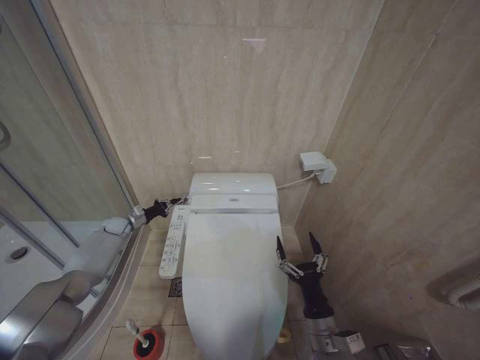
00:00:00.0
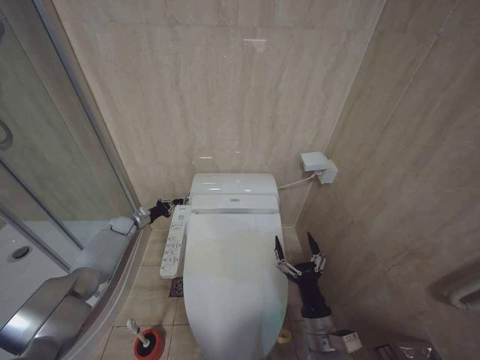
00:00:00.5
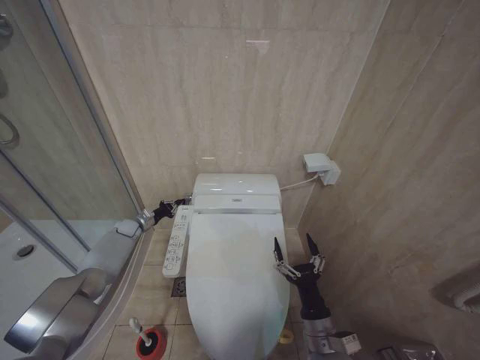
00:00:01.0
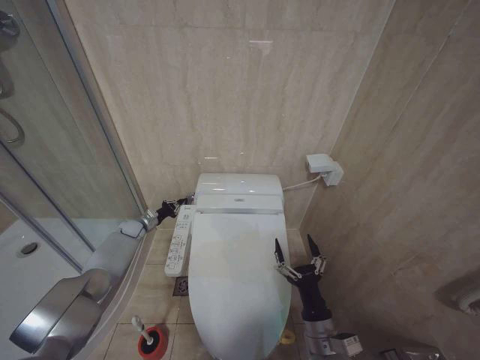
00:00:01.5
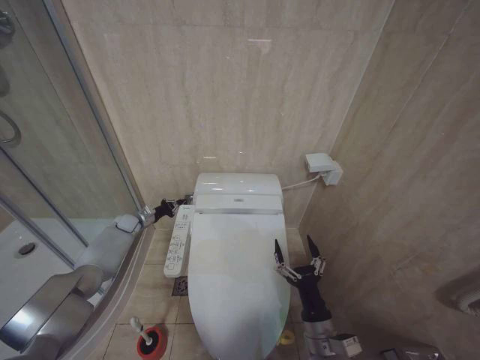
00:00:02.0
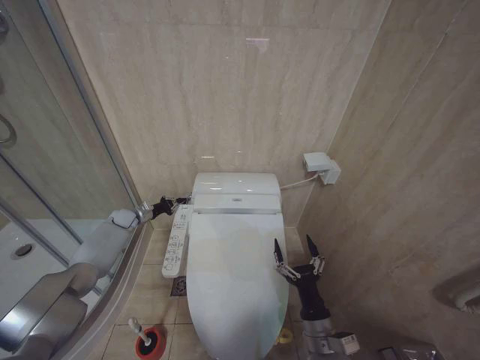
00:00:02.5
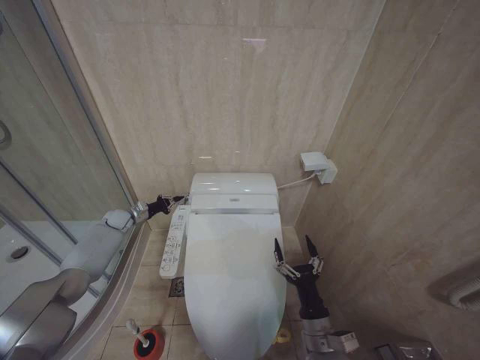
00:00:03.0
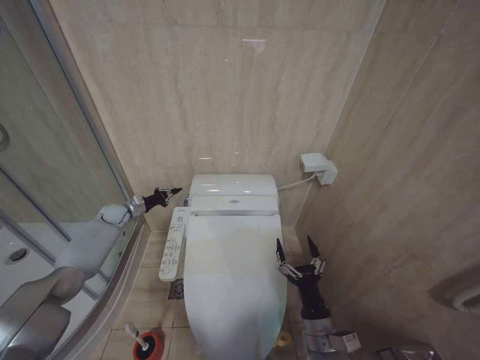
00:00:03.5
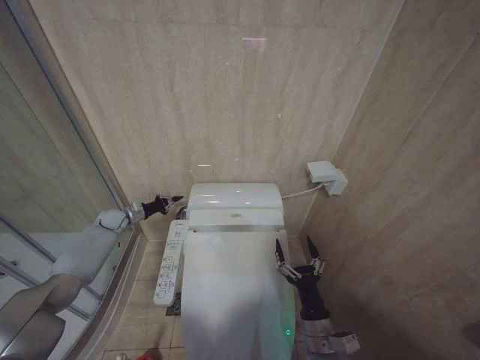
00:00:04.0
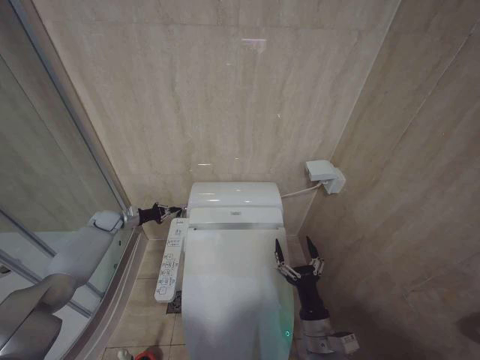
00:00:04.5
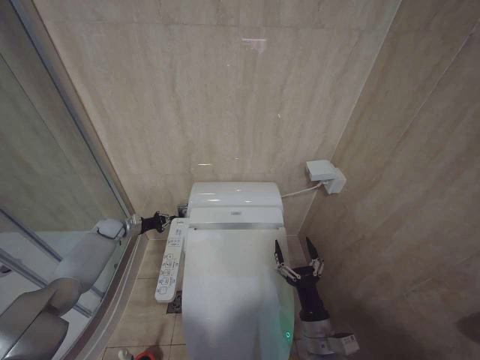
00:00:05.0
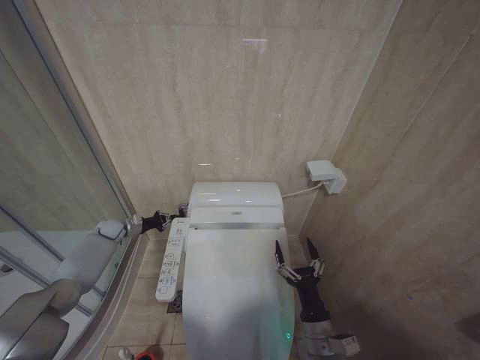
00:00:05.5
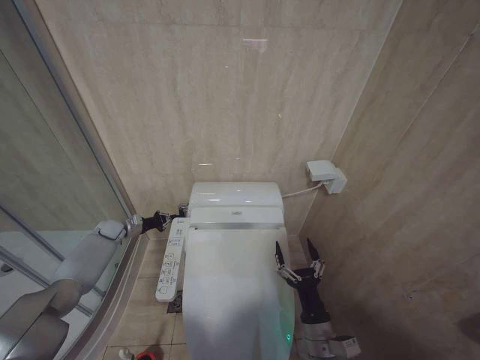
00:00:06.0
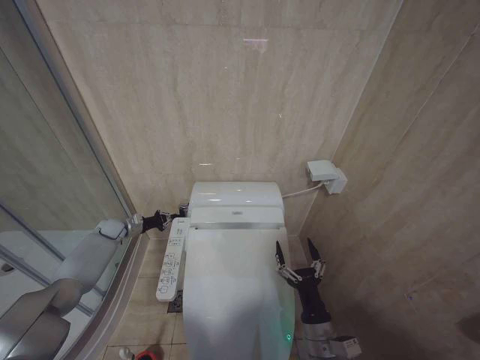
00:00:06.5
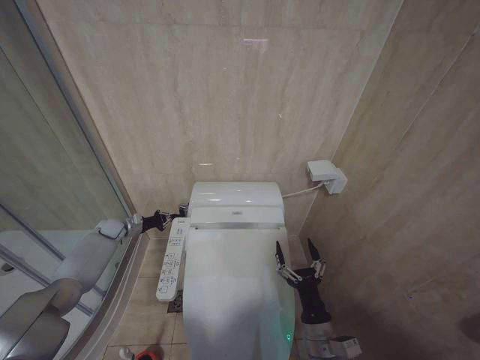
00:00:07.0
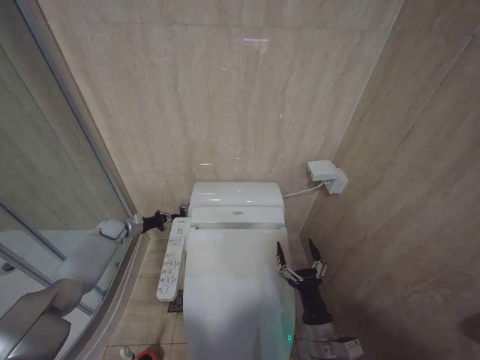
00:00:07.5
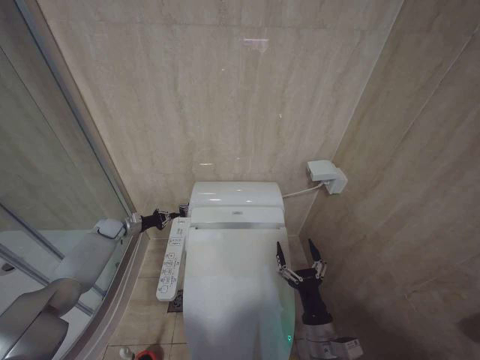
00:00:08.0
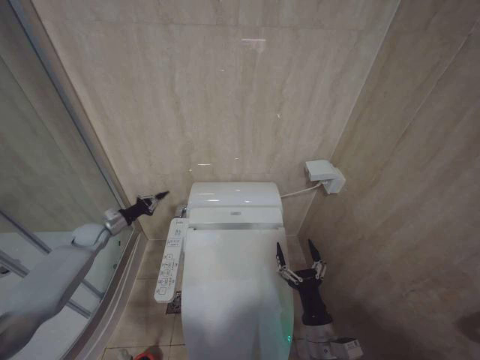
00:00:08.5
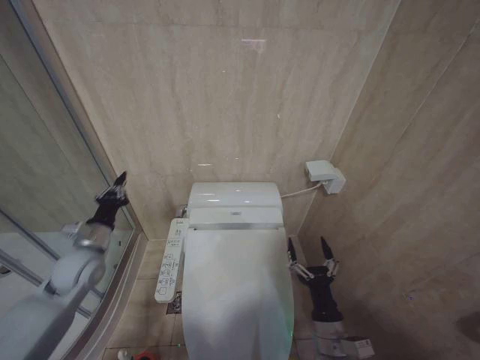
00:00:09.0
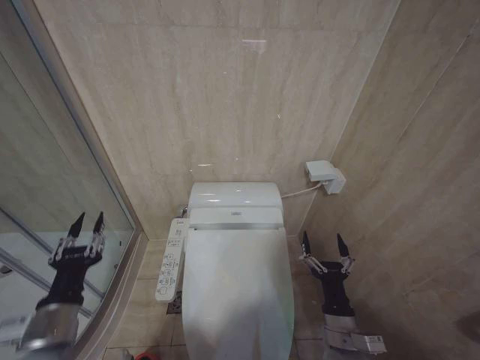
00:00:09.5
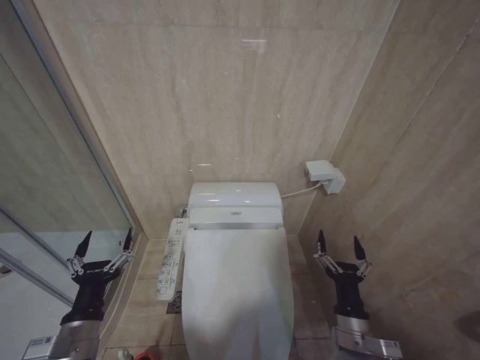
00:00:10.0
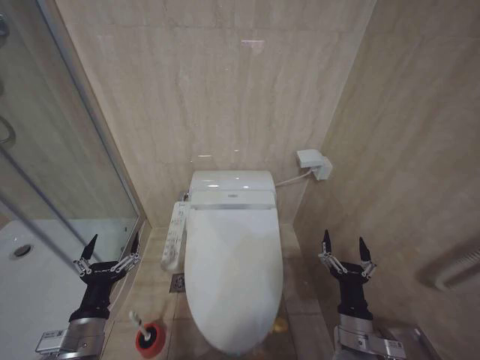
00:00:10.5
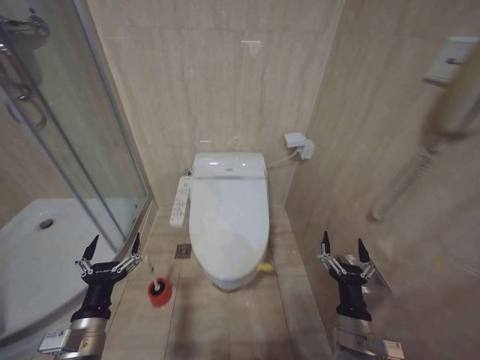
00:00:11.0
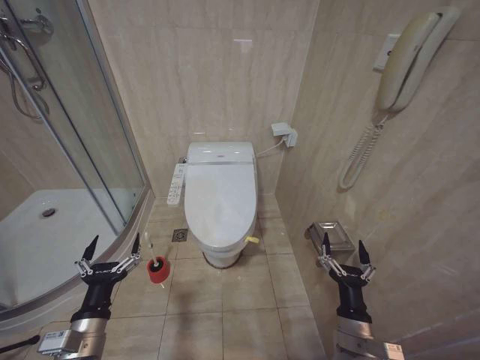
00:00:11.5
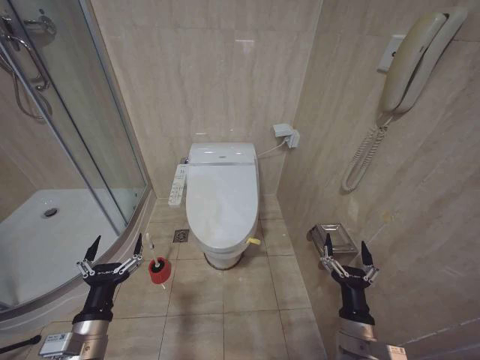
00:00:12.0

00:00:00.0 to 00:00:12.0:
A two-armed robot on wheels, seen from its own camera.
Task of the whole recording: Open the toilet lid, clean the toilet bowl with a toilet brush, close the toilet lid, and flush.
00:00:02.0 to 00:00:04.0: The left gripper shifts by approximately 5 cm.
00:00:04.0 to 00:00:06.0: The grippers make only small movements.
00:00:06.0 to 00:00:08.0: The two grippers keep their place.
00:00:08.0 to 00:00:10.0: The left gripper is displaced backward by some 40 cm, and opens.
